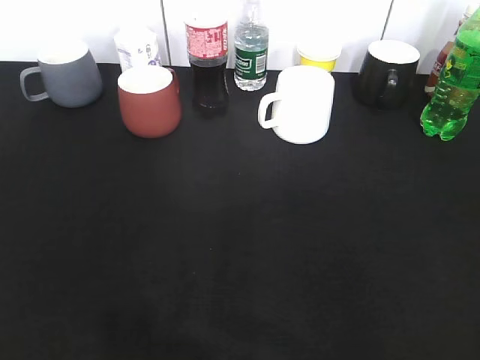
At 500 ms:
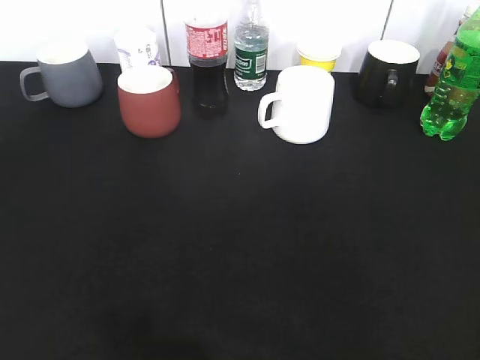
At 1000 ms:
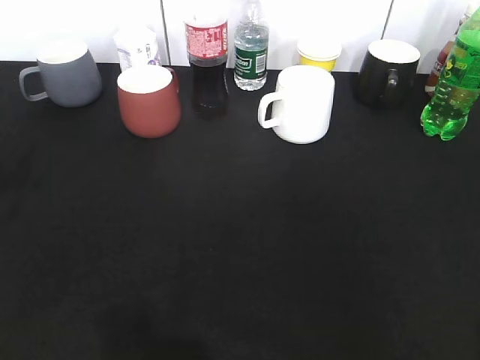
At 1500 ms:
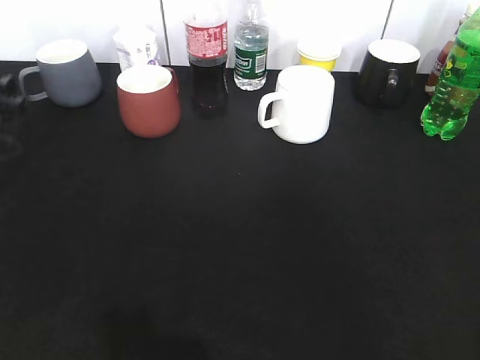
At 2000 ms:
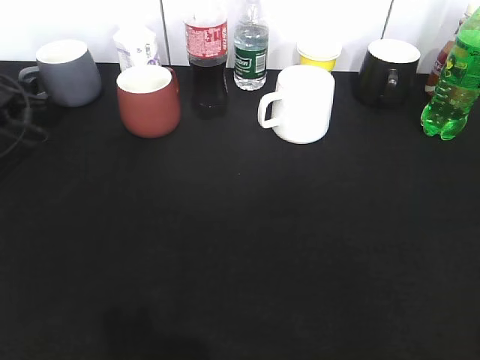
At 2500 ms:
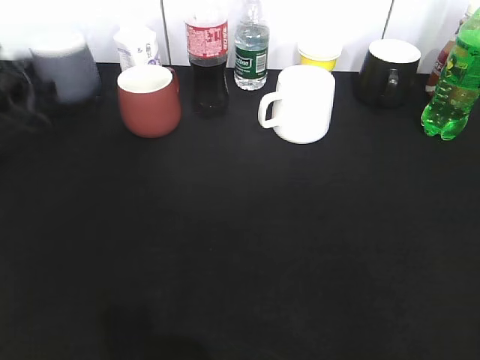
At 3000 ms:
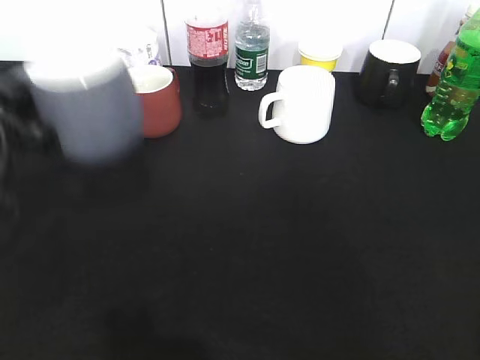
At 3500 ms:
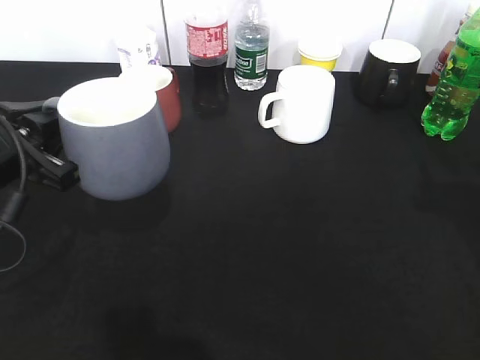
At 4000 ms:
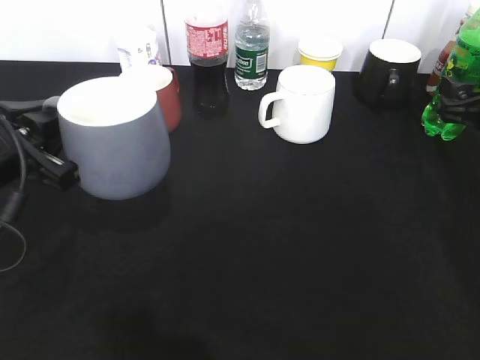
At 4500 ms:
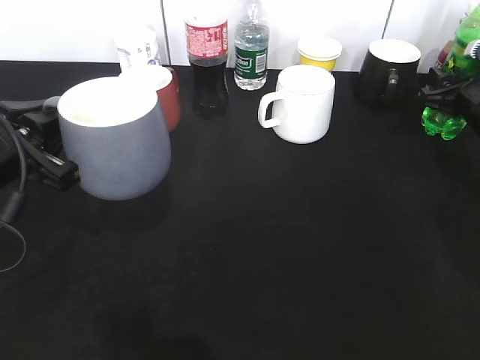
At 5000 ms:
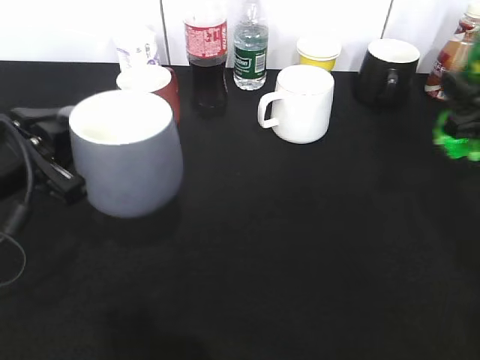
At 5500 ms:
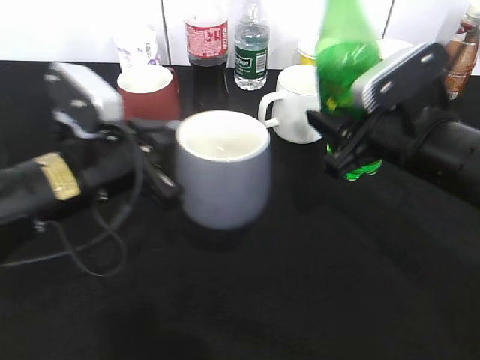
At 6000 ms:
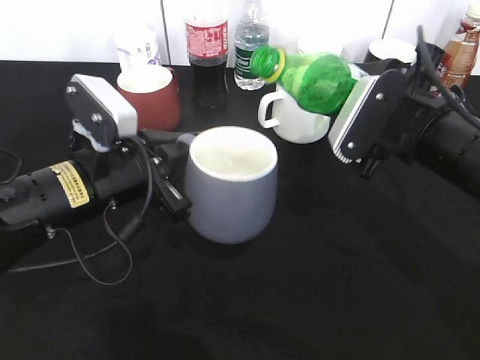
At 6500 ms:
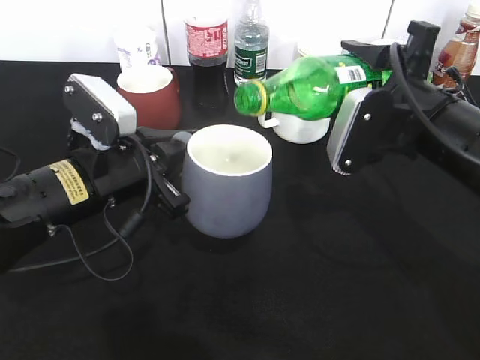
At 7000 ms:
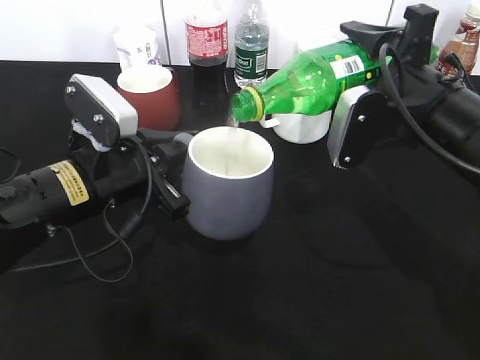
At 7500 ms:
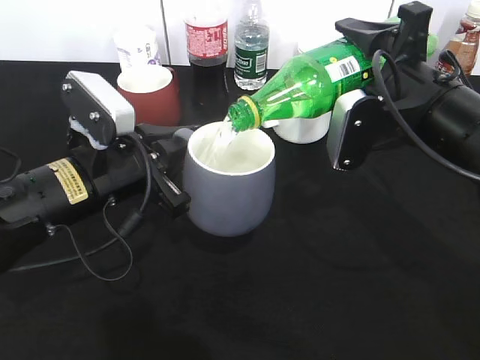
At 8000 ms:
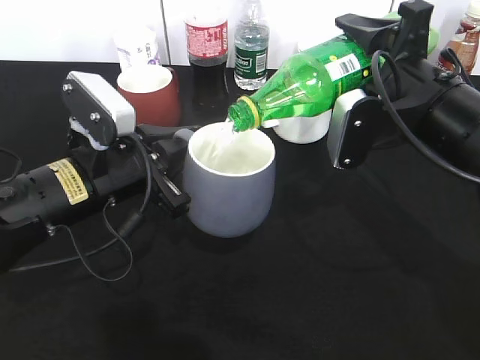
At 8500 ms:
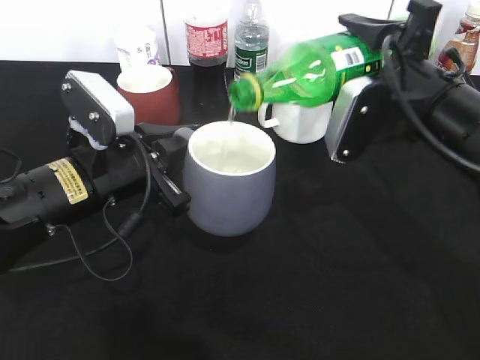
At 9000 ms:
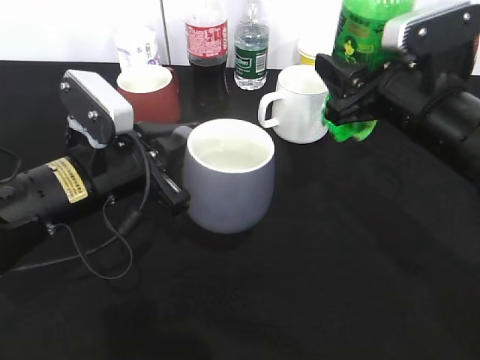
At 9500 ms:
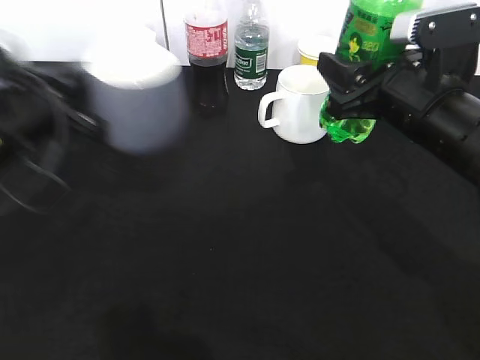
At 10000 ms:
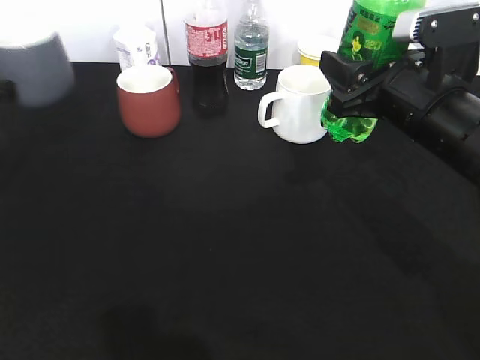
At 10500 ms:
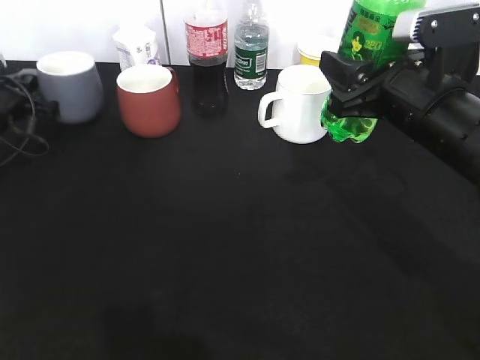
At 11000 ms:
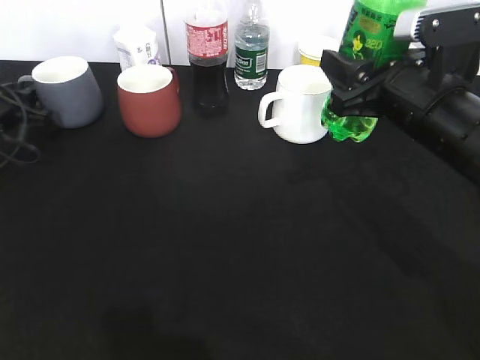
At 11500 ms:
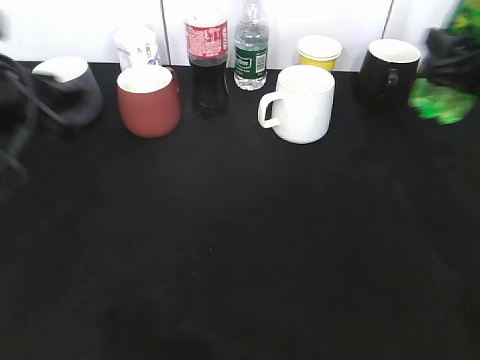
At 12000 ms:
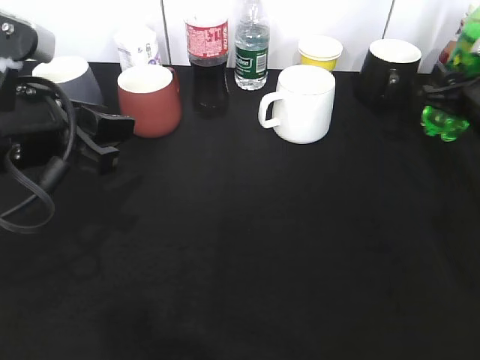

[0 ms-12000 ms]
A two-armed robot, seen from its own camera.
Step, 2500 ms to 3500 ms: Lift the grey cup with left gripper.
Step, 5000 ms to 8500 ms: Pour the sprite from bottle to cup with right gripper.
0 ms to 2000 ms: The left gripper shifts some 40 cm forward.
2000 ms to 4000 ms: The left gripper goes about 25 cm backward, to the right and upward, and closes up. Meanwhile the right gripper moves forward, roughly 35 cm, and opens up.
4000 ms to 6000 ms: The right gripper heads to the left and backward, covering approximately 15 cm, and closes its fingers. The left gripper moves to the right, roughly 10 cm.
8000 ms to 10000 ms: The left gripper goes about 20 cm to the left and forward.
10000 ms to 12000 ms: The right gripper goes roughly 15 cm to the right, forward and downward; the left gripper heads to the right and backward, covering approximately 20 cm, and opens its fingers.

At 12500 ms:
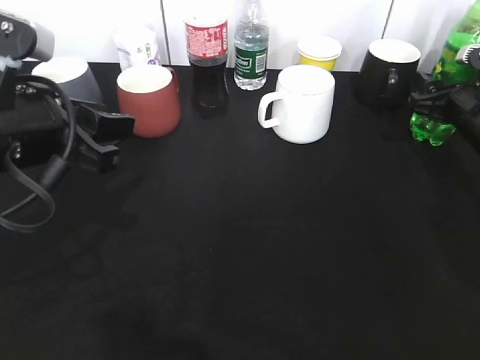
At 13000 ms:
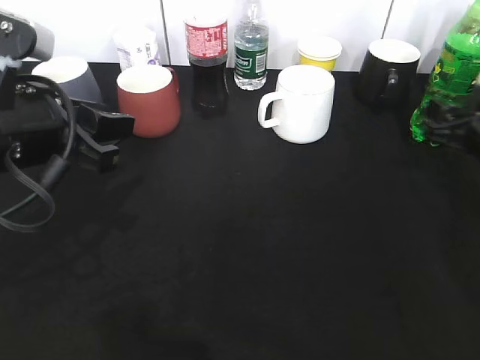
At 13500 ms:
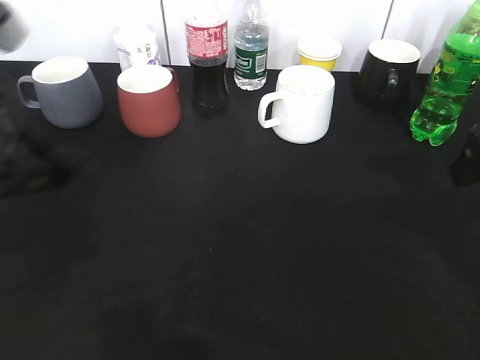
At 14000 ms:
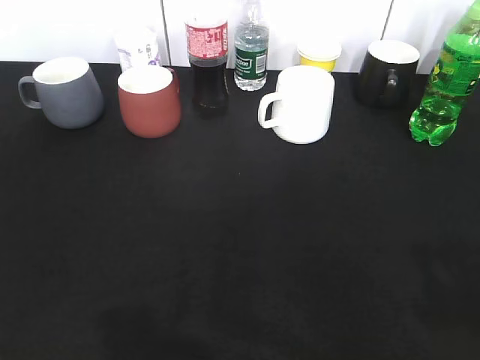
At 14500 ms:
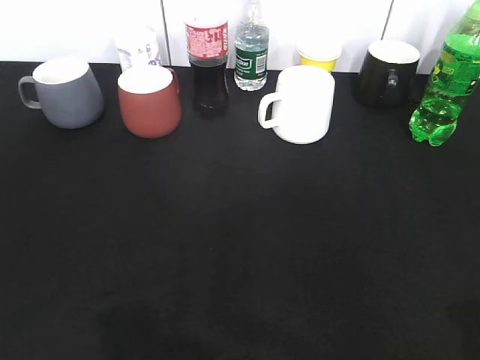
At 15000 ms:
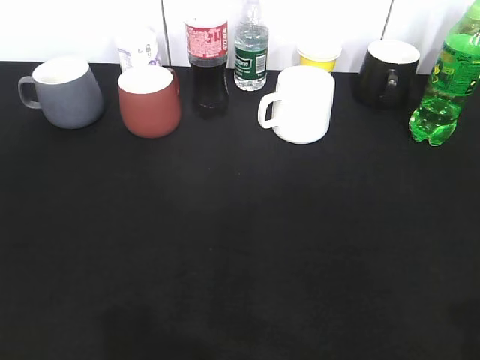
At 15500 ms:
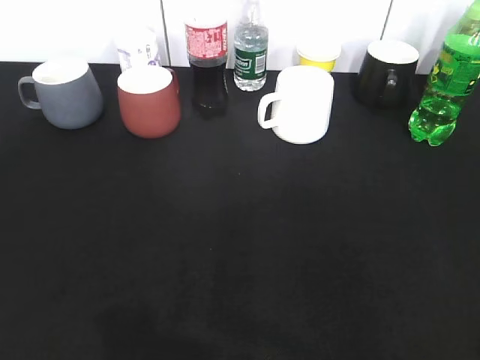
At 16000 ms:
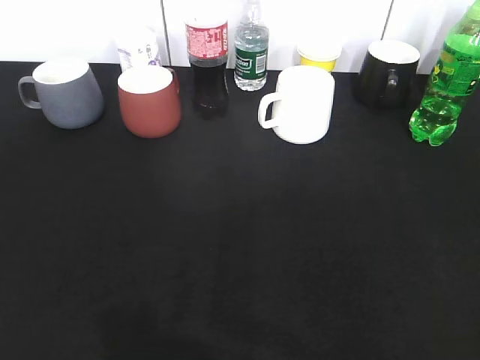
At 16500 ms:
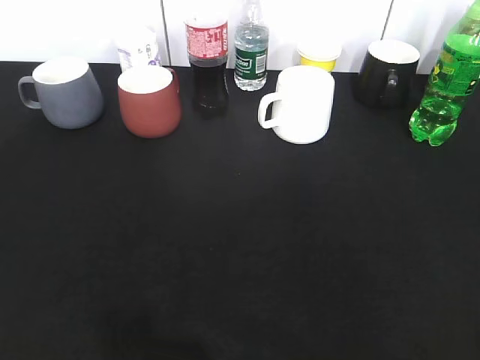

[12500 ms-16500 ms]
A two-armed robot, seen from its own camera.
12500 ms to 14500 ms: The right gripper heads backward and upward, covering about 40 cm. The left gripper shifts about 25 cm backward and to the left.

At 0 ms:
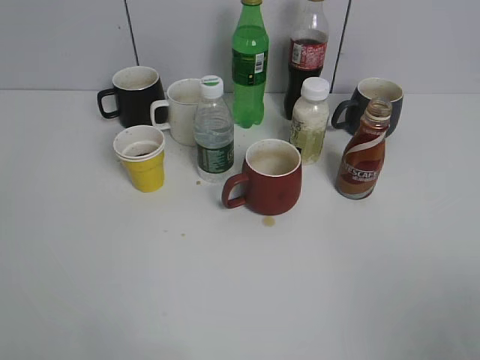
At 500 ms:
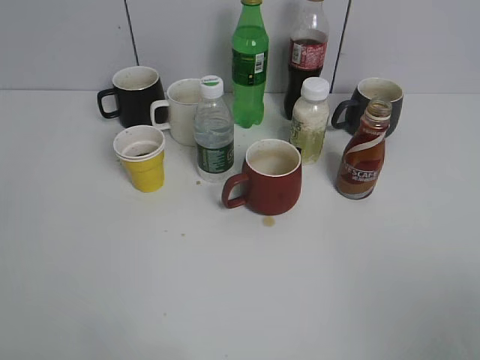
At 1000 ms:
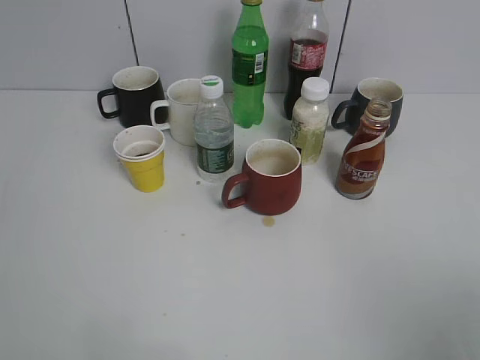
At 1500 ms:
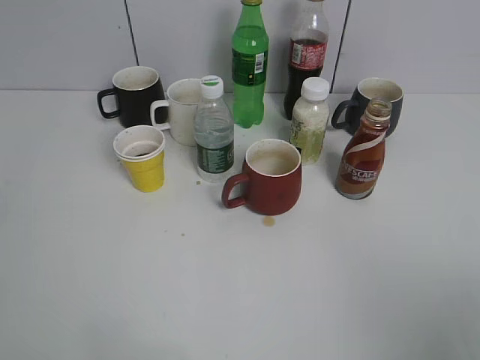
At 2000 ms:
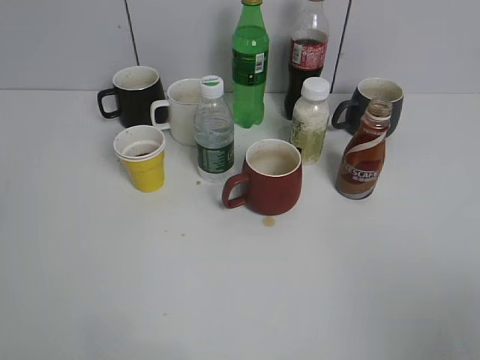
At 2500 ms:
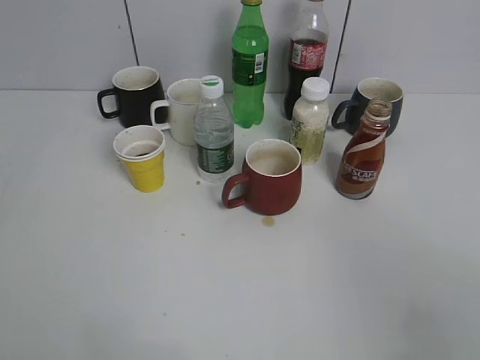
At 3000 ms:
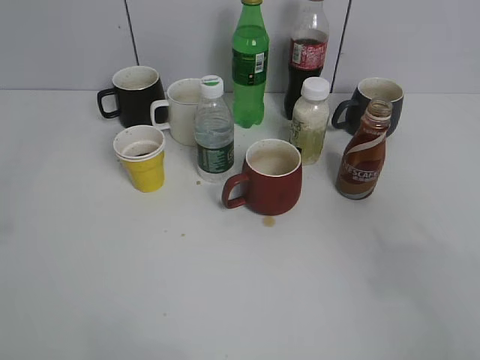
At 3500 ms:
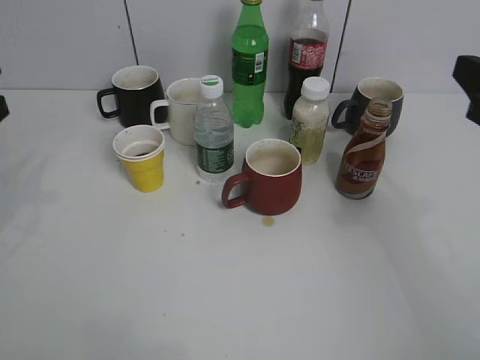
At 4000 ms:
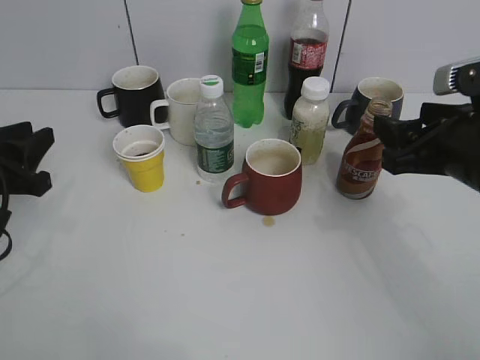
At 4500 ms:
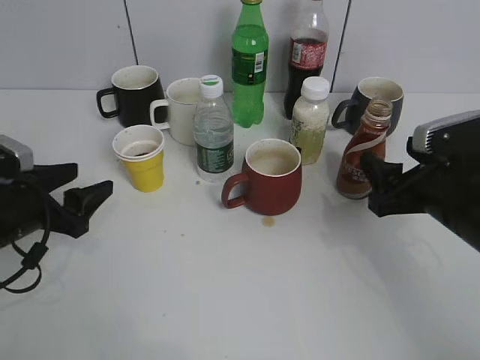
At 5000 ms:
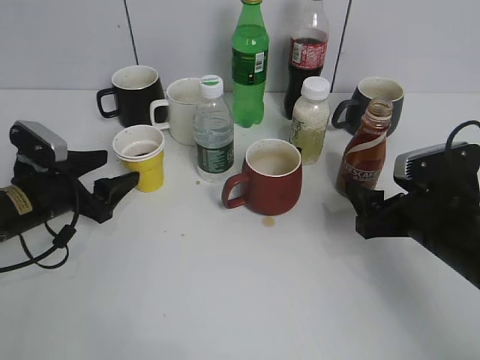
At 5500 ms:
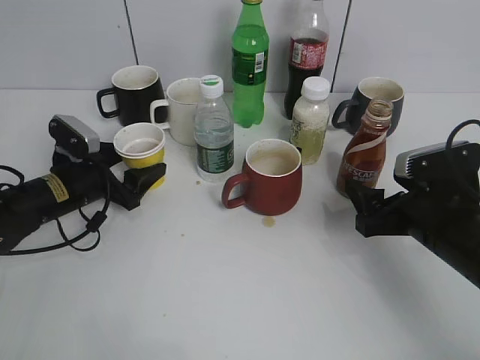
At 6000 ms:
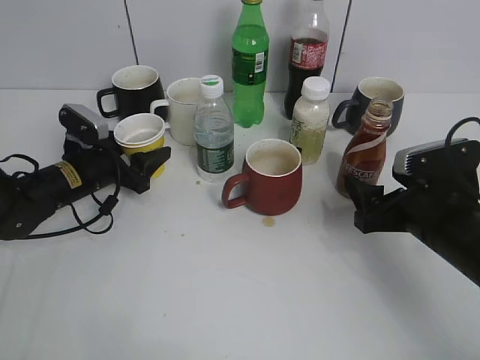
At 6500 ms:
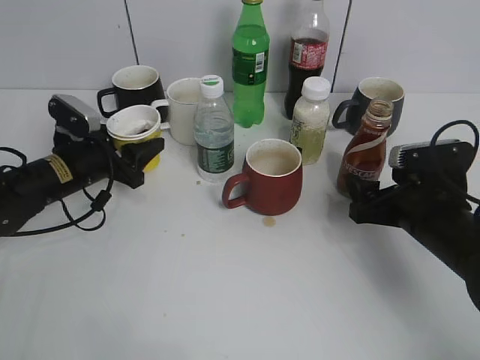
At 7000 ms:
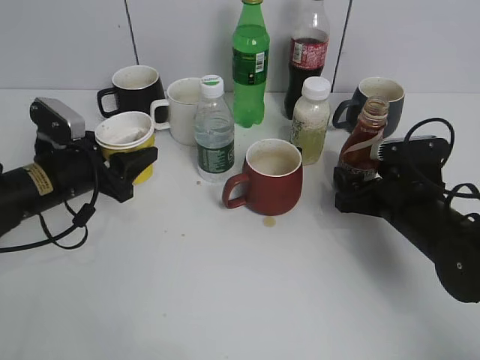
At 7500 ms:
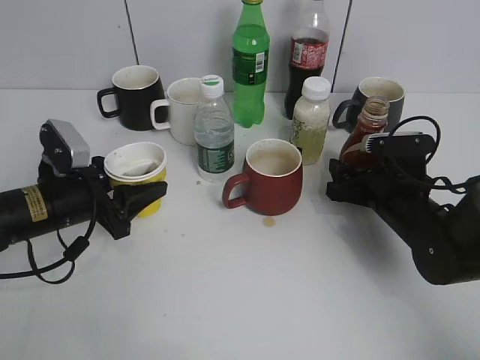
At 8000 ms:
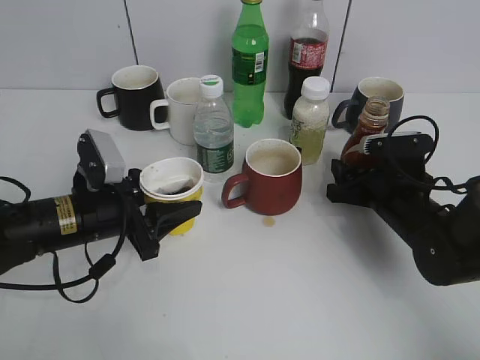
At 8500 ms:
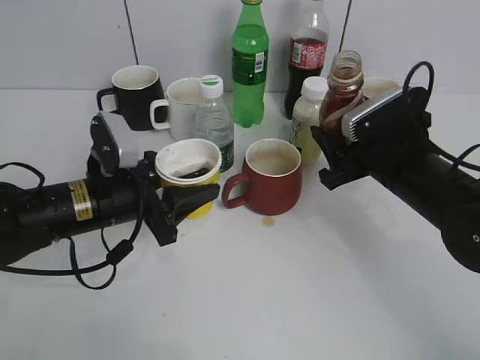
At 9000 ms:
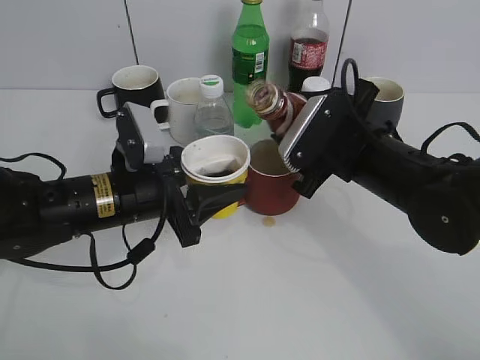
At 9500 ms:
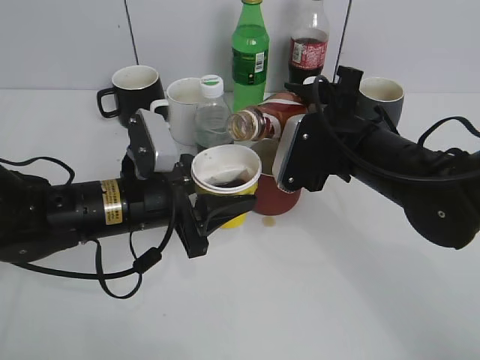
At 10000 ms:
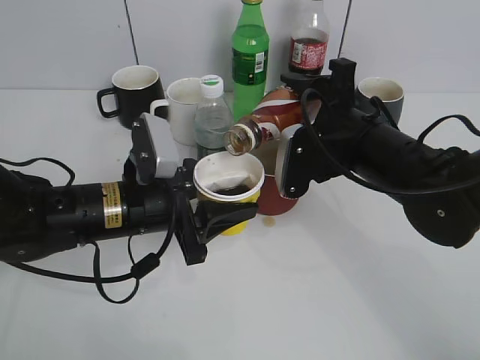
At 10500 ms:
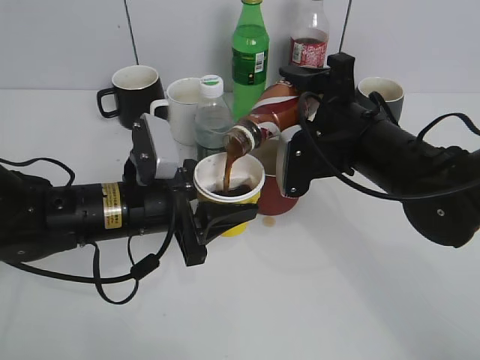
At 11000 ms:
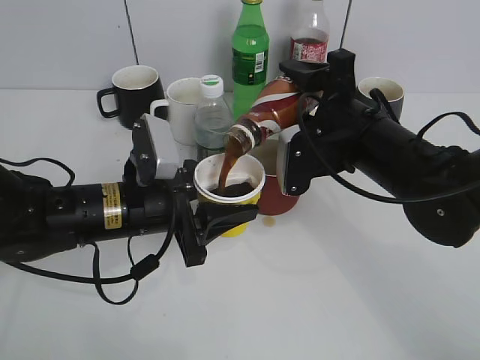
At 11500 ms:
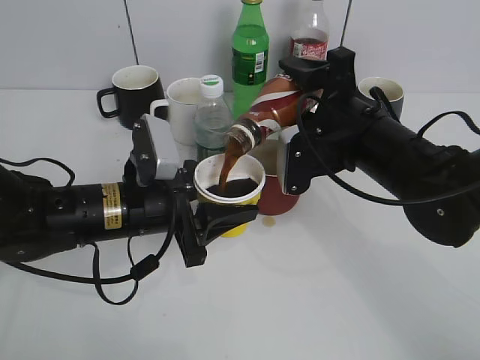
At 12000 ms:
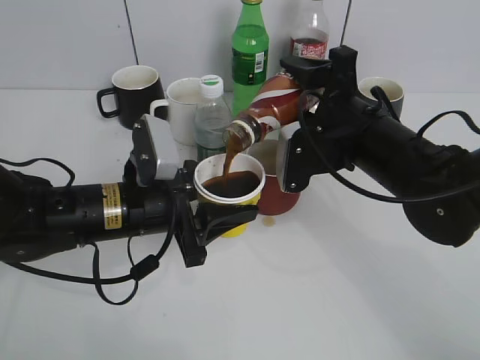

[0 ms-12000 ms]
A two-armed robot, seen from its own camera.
Step, 2000 ms to 5500 ms: Grasp the yellow paper cup with left gripper.
Step, 6500 ms to 7500 ms: Grasp the bottle with coffee with right gripper.
2000 ms to 4000 ms: The right gripper goes roughly 25 cm forward, and closes. The left gripper shifts approximately 30 cm forward and downward.
4000 ms to 6000 ms: The right gripper moves downward, approximately 10 cm, and opens up. Meanwhile the left gripper shifts some 20 cm forward, downward and to the right, and opens its fingers.
6000 ms to 8000 ms: The left gripper is displaced backward by some 10 cm. Meanwhile the right gripper travels forward and downward by approximately 10 cm, and closes up.
8000 ms to 10000 ms: The right gripper is displaced upward and to the left by approximately 15 cm. The left gripper shifts some 5 cm to the right.
10000 ms to 12000 ms: The grippers stay close to where they were, moving slightly.
